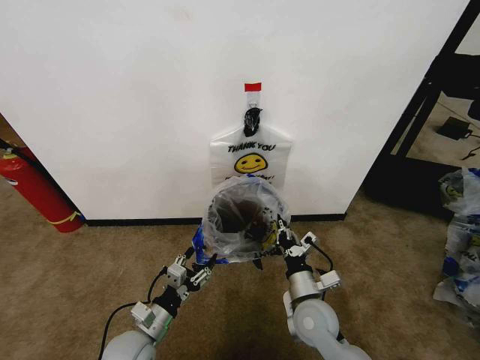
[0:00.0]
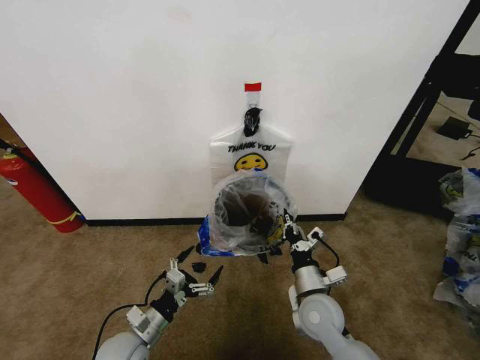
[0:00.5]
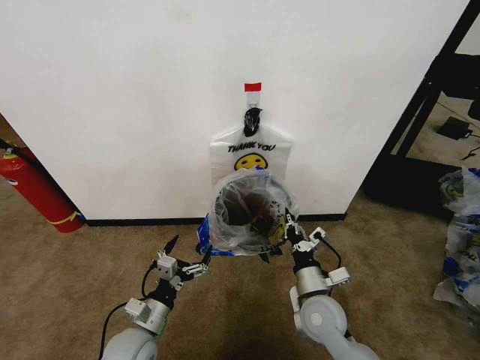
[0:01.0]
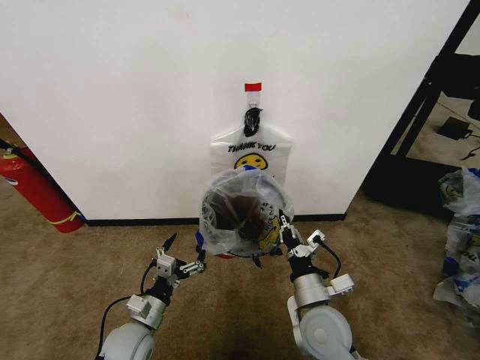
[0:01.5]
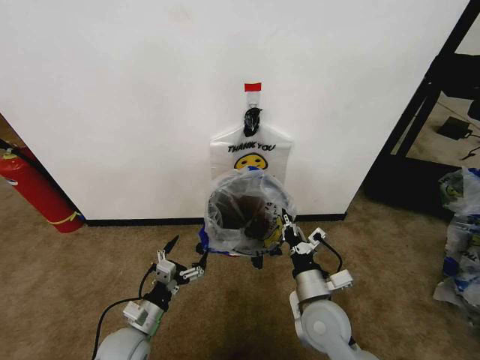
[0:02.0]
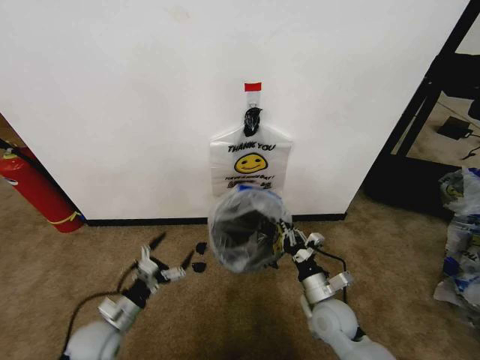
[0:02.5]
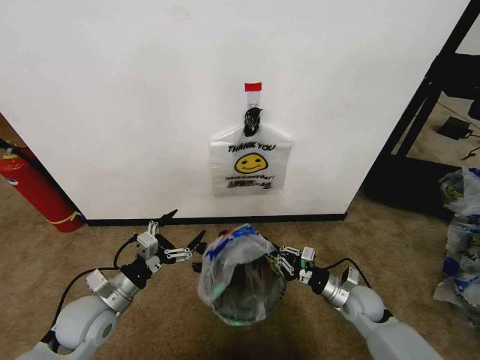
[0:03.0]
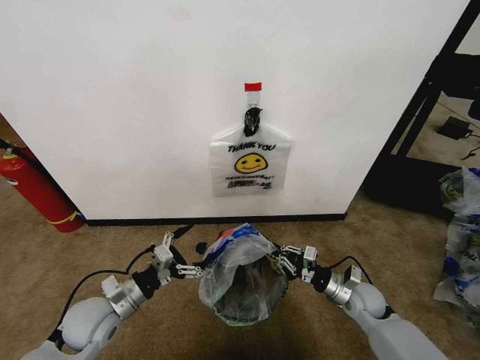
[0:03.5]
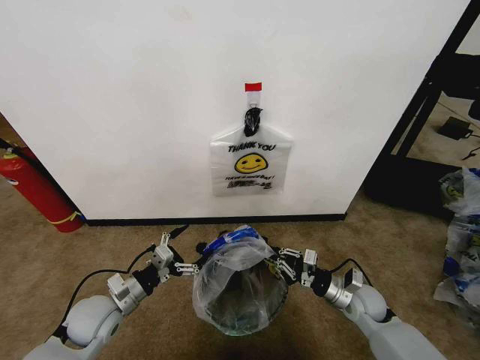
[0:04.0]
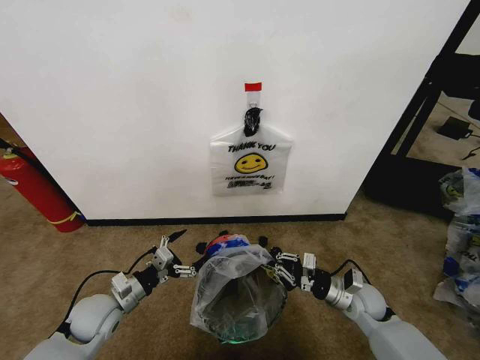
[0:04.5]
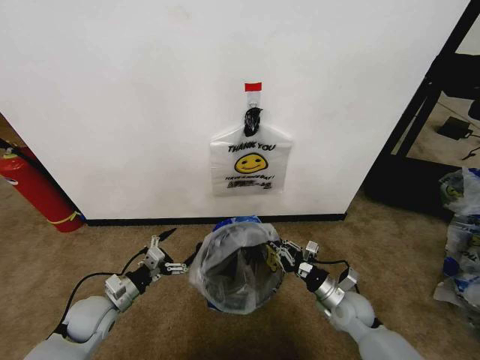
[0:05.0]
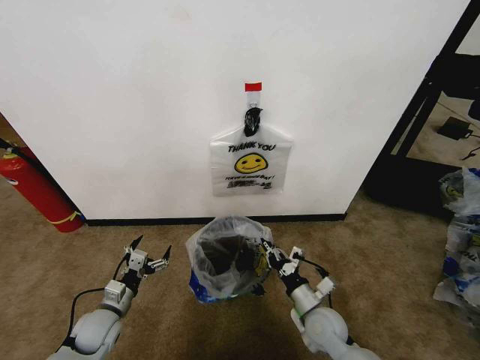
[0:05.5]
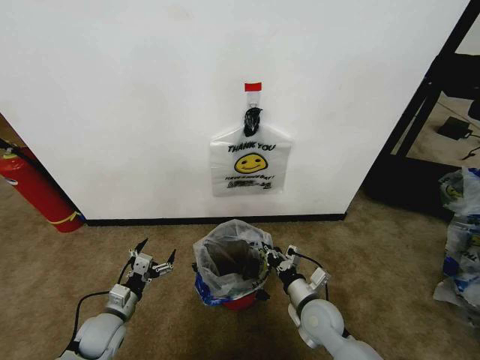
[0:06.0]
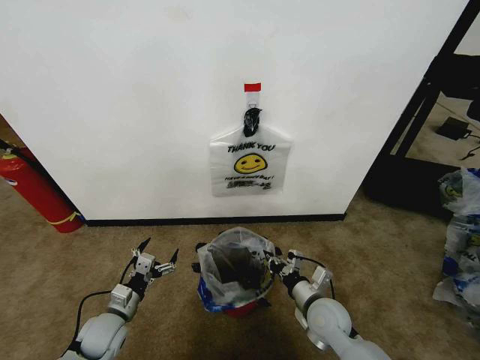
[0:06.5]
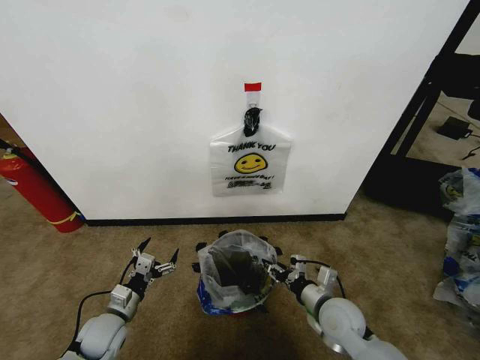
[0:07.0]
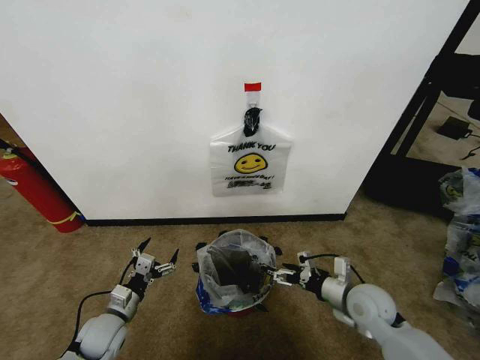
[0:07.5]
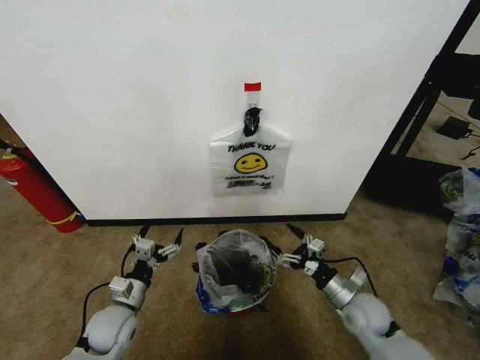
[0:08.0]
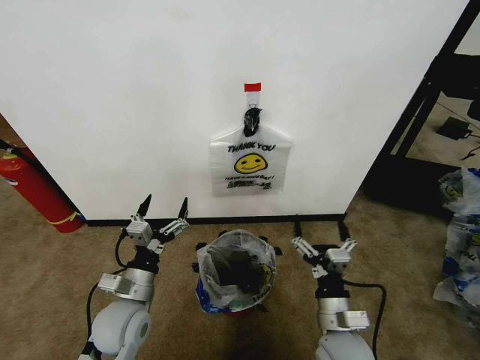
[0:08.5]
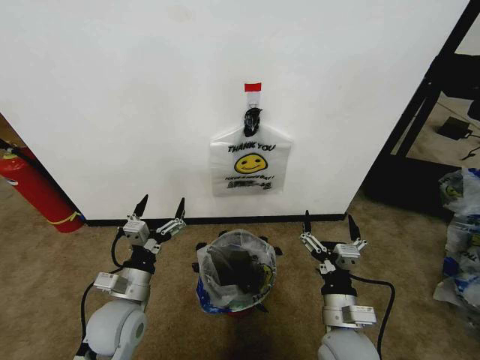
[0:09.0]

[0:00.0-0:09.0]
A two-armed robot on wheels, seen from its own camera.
Task of the whole recording: Pick up the garbage bag from the wall and place it over the trash bin.
0:00.0 to 0:02.0: The grippers stay close to where they were, moving slightly.
0:02.0 to 0:04.5: The left gripper shifts roughly 10 cm to the left and forward. Meanwhile the right gripper shifts roughly 15 cm to the right, downward and forward.
0:04.5 to 0:07.0: The right gripper heads to the left, covering approximately 5 cm, and opens, while the left gripper is displaced downward by about 5 cm.
0:07.0 to 0:09.0: The left gripper is displaced upward and to the right by approximately 15 cm. Meanwhile the right gripper heads backward and upward, covering about 10 cm, and opens.
